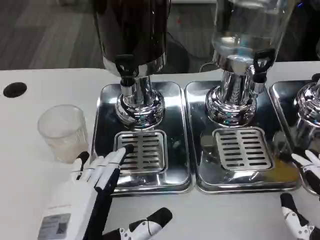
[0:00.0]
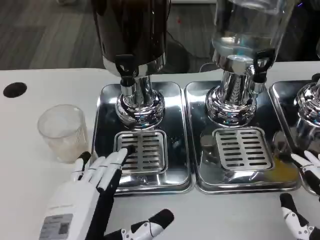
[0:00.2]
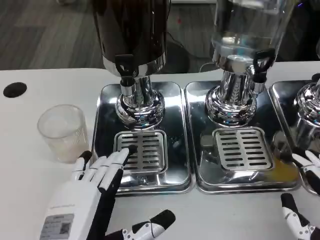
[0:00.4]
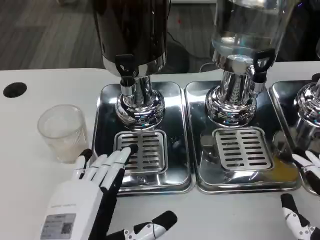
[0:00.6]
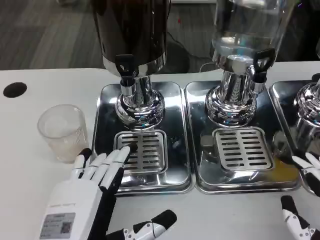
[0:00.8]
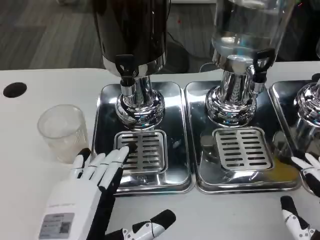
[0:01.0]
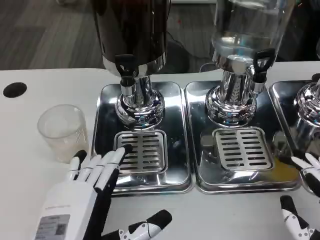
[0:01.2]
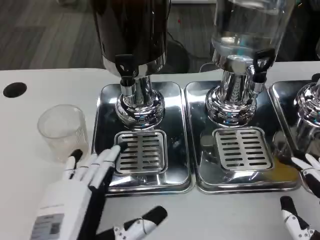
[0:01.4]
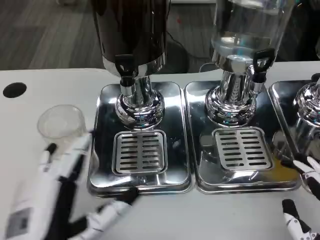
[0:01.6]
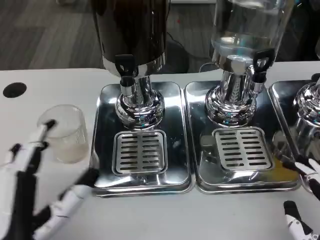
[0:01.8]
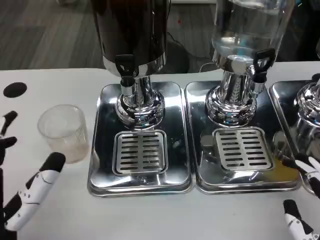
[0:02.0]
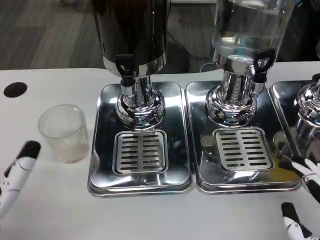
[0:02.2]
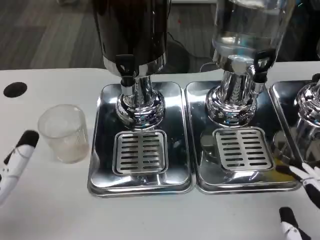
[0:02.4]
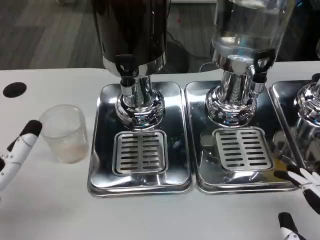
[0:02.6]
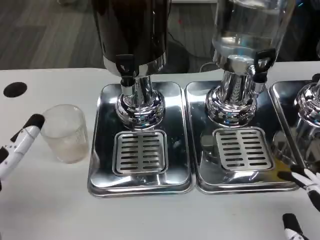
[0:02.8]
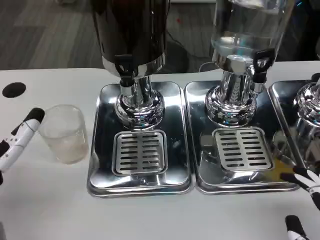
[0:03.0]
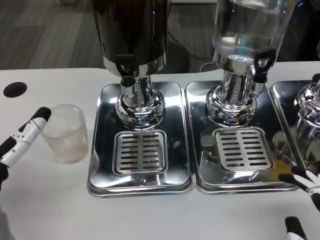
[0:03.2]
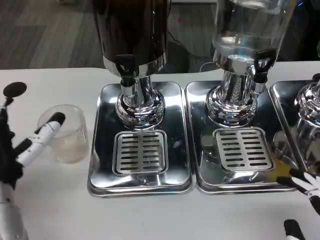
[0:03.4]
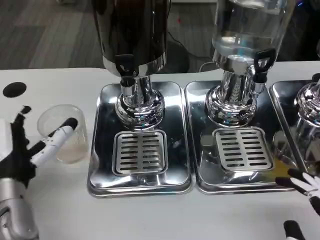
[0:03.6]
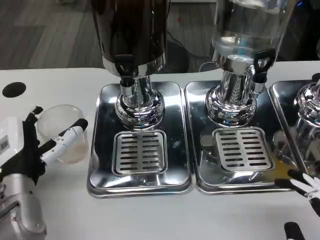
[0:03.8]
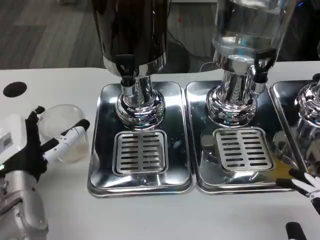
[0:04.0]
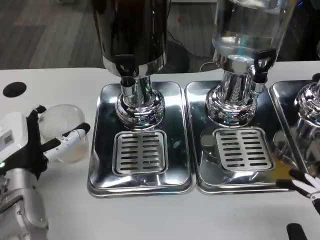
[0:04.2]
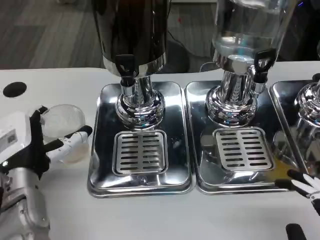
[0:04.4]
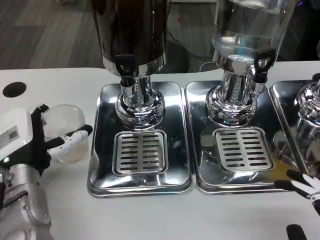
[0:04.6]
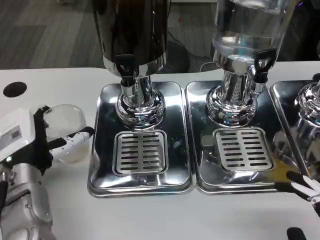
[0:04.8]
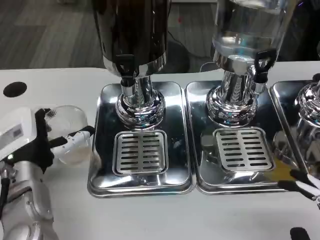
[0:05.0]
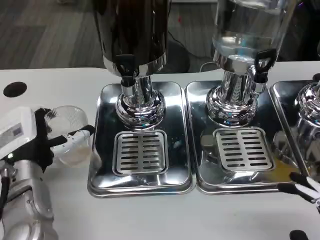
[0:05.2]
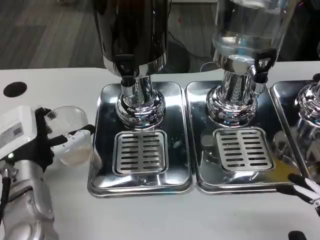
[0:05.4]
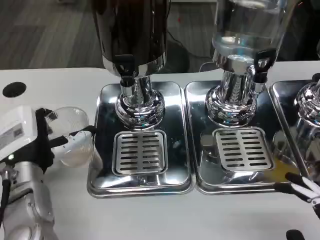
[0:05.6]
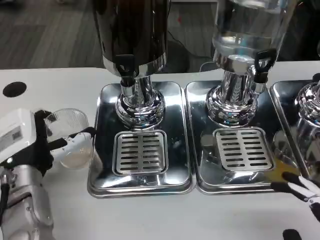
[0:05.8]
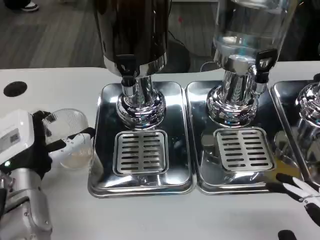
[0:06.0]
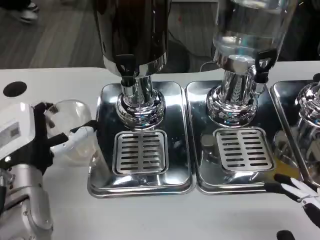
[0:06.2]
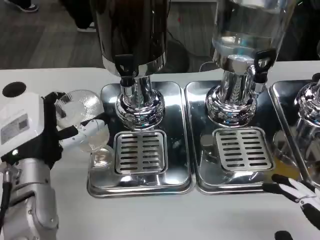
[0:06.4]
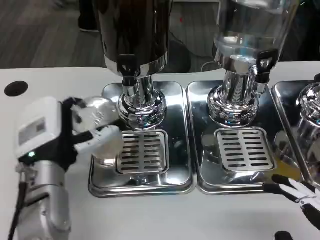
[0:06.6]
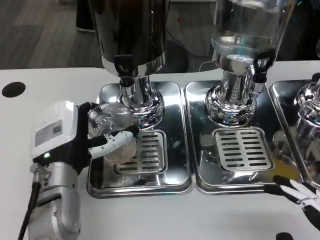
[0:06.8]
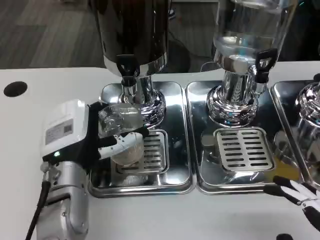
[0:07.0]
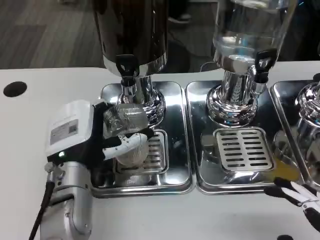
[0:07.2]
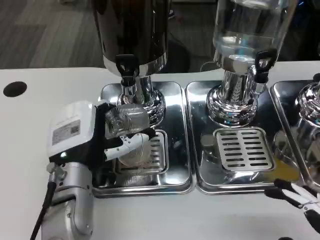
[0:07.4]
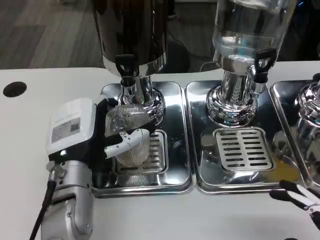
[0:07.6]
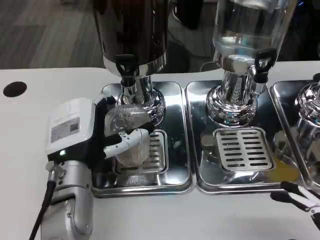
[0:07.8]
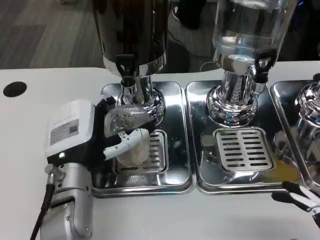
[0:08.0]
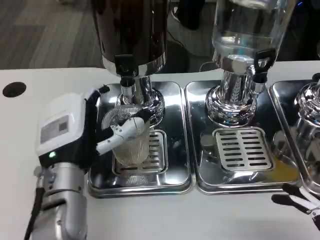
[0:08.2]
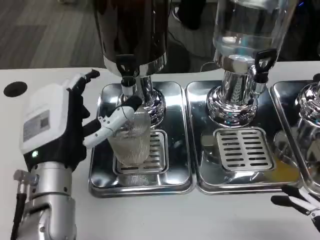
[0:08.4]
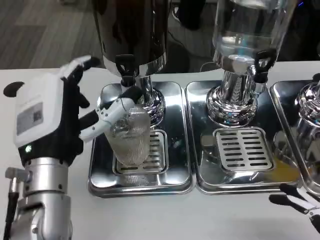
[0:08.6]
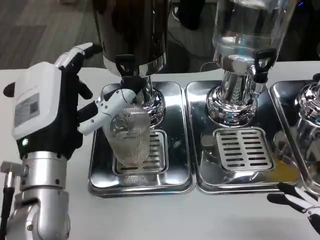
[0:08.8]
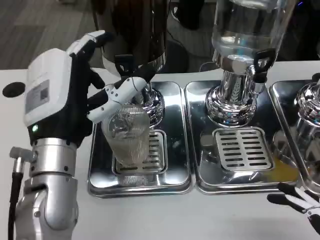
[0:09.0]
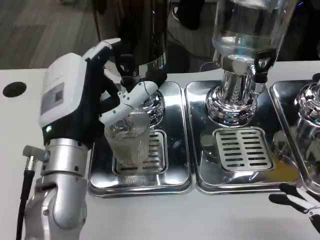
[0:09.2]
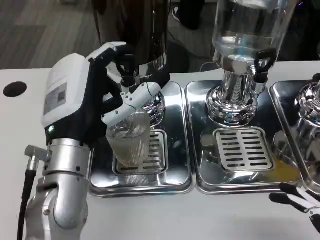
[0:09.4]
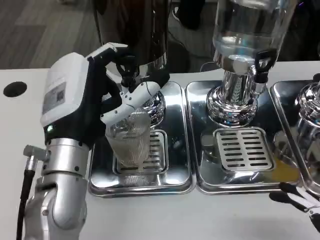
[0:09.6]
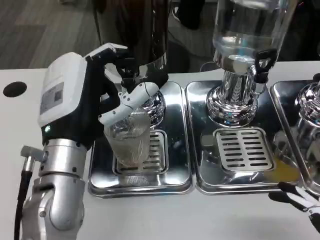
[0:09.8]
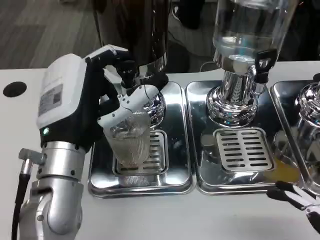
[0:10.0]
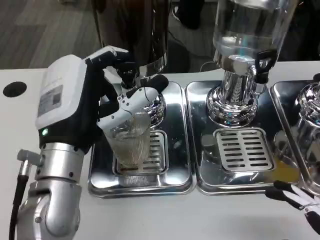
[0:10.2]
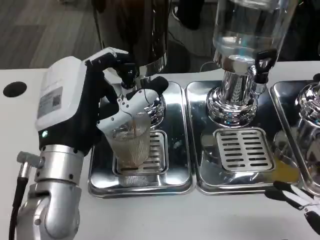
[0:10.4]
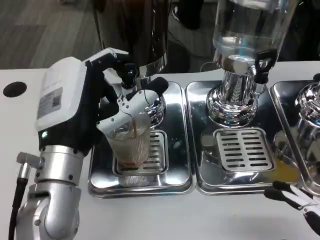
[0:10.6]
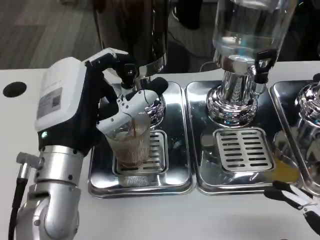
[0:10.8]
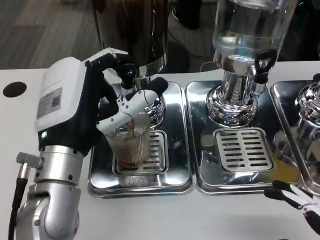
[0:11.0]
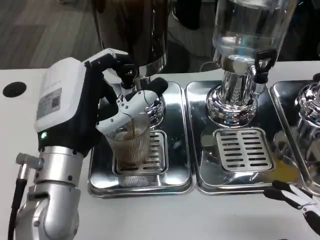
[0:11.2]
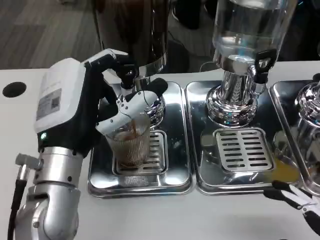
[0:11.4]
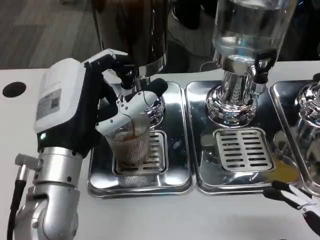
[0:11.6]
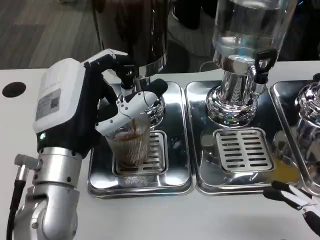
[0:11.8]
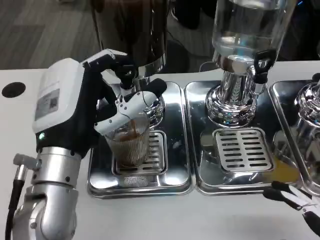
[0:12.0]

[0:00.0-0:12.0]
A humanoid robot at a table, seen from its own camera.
Task of the whole recording: Grasp the cup under the faucet to collect the drink, then remove the cup.
0:00.0 to 0:01.6: The hands move only a little.
0:01.6 to 0:03.0: The left hand shifts about 10 cm forward and to the left.
0:03.0 to 0:04.4: The left hand ends up roughly 5 cm from where it was.
0:04.4 to 0:06.0: The hands move only a little.
0:06.0 to 0:07.6: The left hand shifts approximately 5 cm to the right.
0:07.6 to 0:09.0: The left hand heads upward, covering approximately 5 cm.
0:10.4 to 0:12.0: The two hands keep their place.

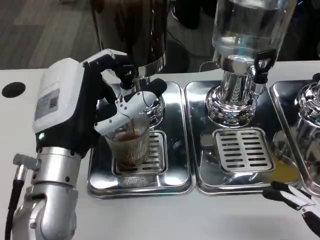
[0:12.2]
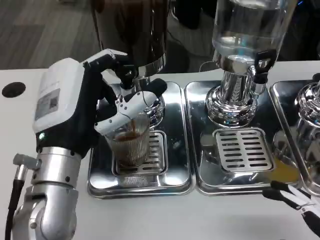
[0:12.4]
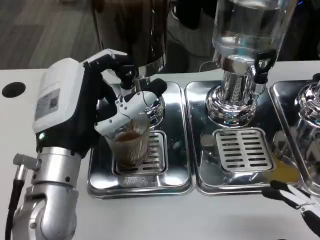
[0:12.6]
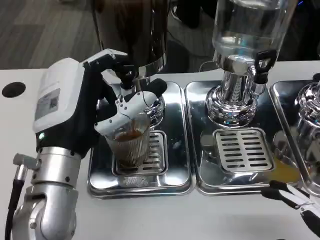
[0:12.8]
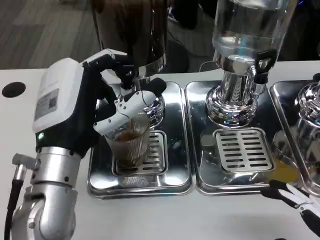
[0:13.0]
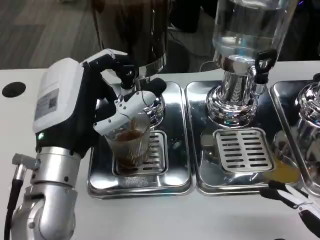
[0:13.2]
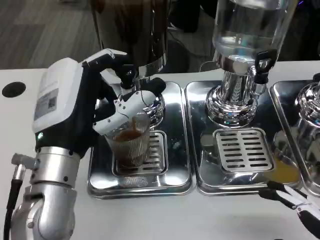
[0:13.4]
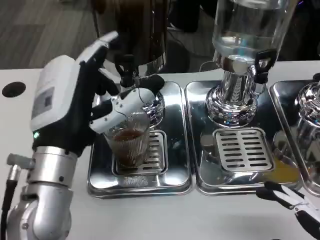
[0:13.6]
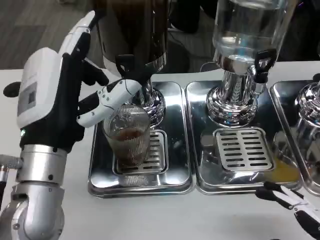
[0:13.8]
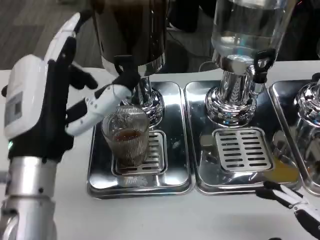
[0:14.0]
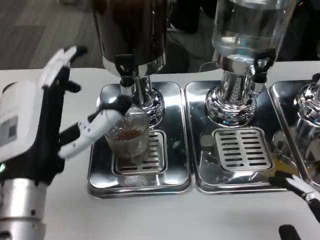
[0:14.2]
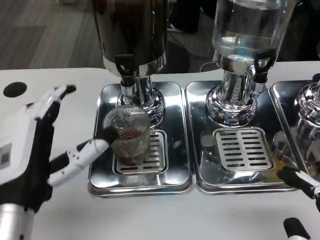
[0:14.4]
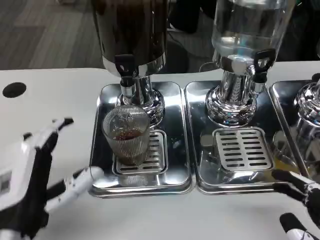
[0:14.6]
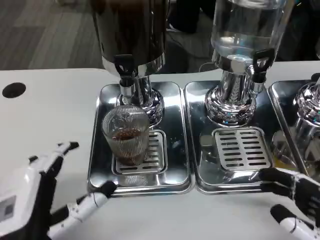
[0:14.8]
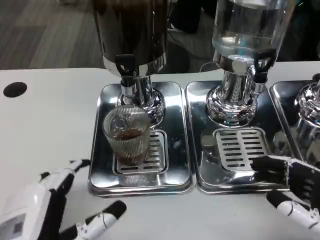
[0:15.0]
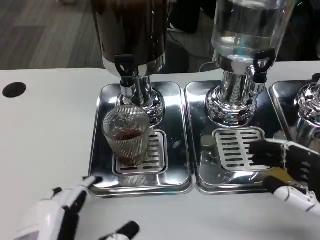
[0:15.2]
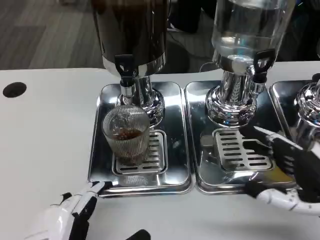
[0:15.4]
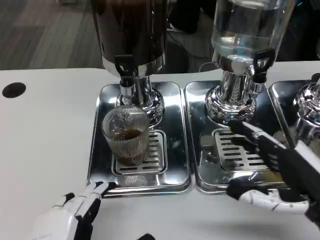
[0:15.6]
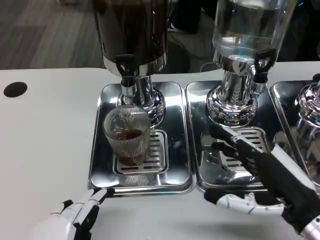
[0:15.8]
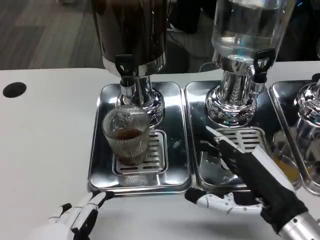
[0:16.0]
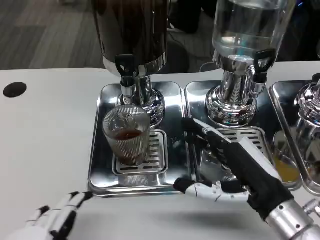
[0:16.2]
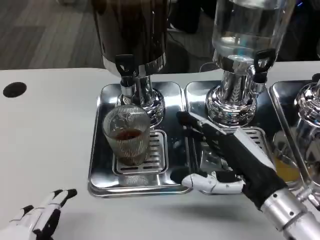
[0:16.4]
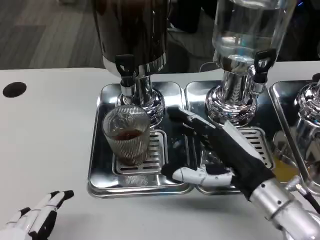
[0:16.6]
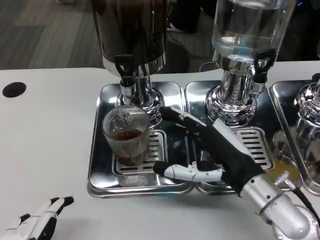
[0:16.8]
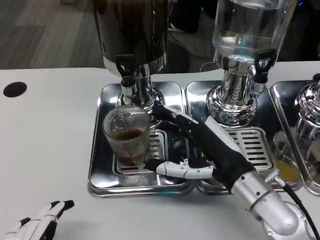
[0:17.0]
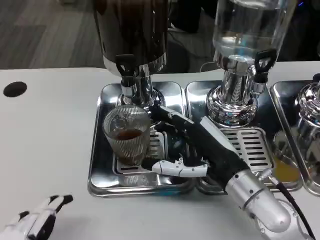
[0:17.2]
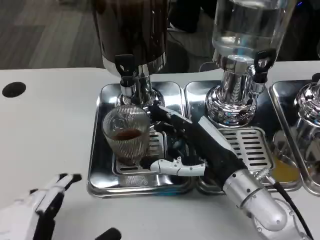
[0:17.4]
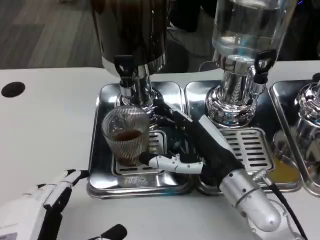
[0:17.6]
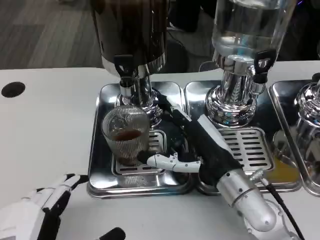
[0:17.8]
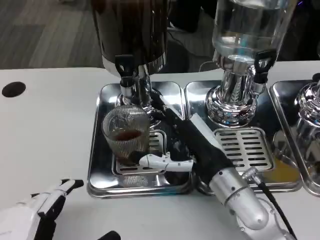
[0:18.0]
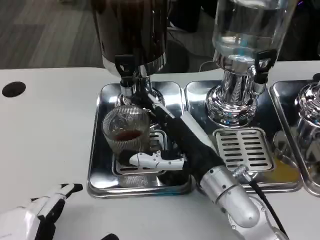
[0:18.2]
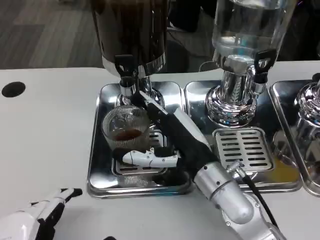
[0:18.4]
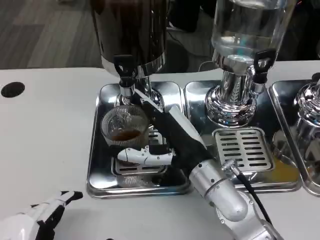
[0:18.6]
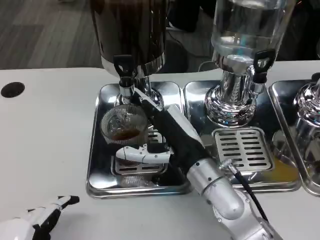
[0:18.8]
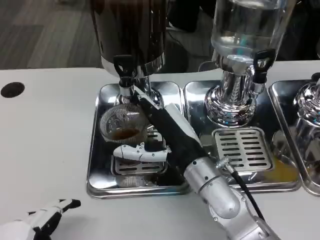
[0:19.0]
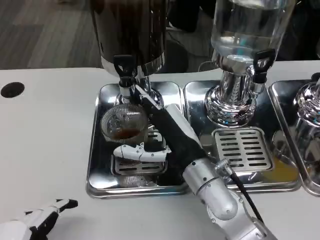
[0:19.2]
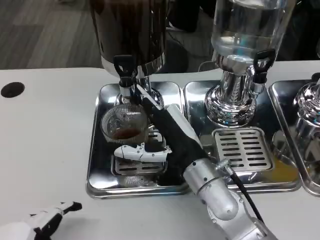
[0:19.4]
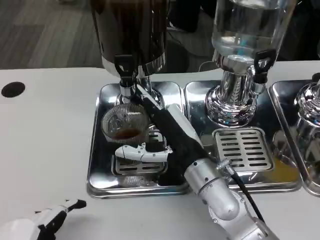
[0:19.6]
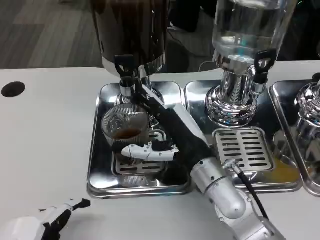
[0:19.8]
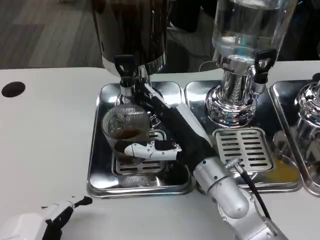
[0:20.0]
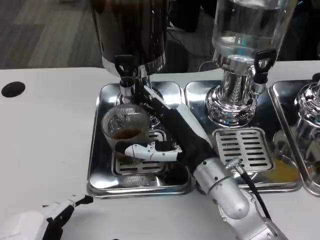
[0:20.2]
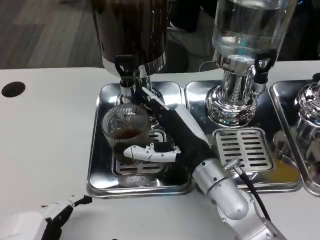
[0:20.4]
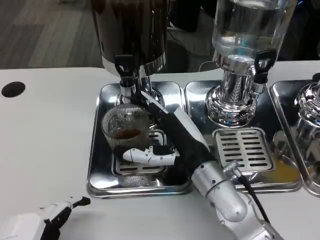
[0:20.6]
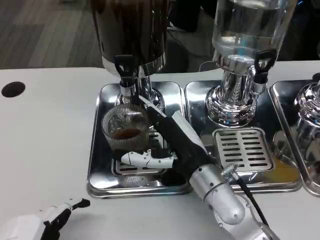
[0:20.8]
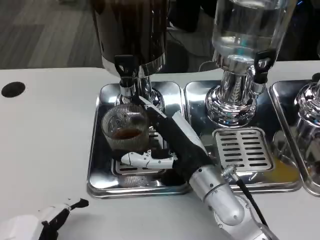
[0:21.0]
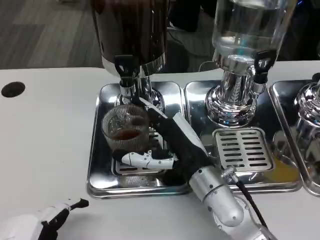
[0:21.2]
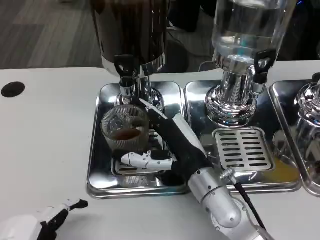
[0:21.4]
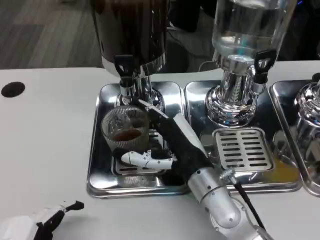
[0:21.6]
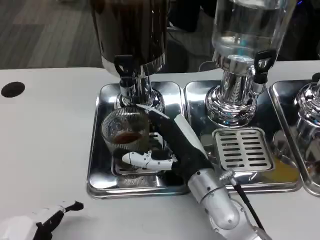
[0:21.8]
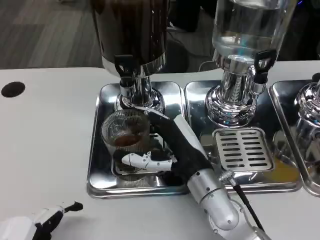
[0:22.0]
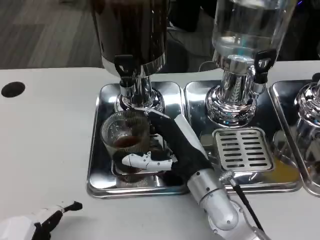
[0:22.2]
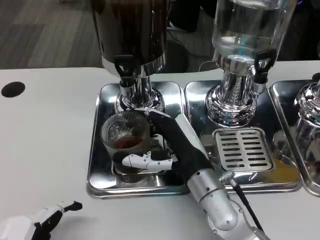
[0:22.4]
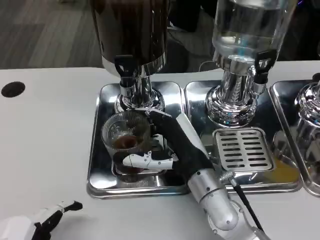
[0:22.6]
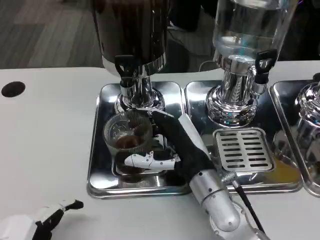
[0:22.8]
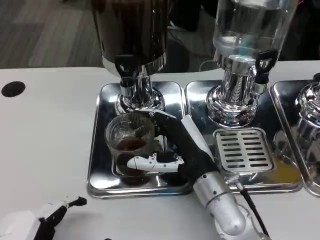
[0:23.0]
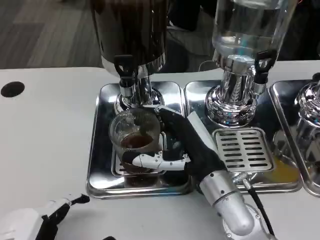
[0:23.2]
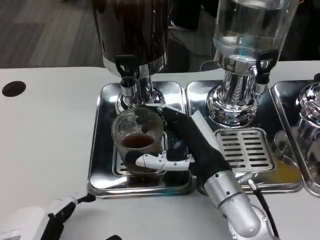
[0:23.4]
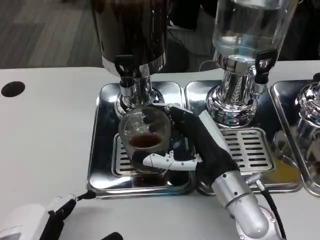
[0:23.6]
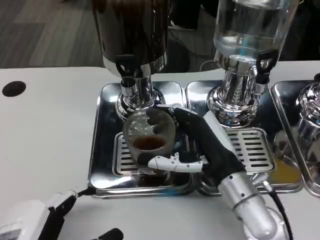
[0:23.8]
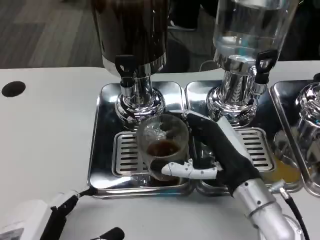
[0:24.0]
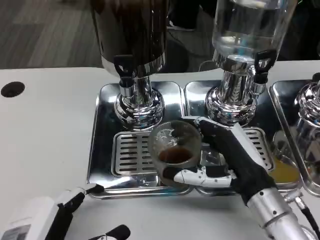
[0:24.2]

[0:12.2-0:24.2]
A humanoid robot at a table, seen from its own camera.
Task of the whole recording: Grasp the cup under the faucet to collect the drink, then remove the cup.
0:13.8 to 0:15.2: The left hand is displaced backward and downward by approximately 15 cm. Meanwhile the right hand travels forward by some 10 cm.
0:15.2 to 0:16.6: The right hand shifts roughly 15 cm to the left and forward.
0:16.6 to 0:18.2: The right hand is displaced to the left by some 5 cm.
0:18.2 to 0:19.8: The hands make only small movements.
0:19.8 to 0:21.2: The two hands keep their place.
0:21.2 to 0:22.6: The two hands keep their place.
0:22.6 to 0:24.2: The right hand moves to the right, some 10 cm.
